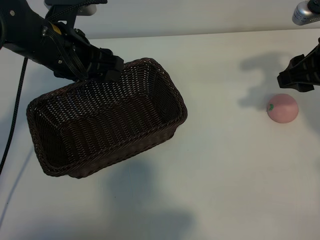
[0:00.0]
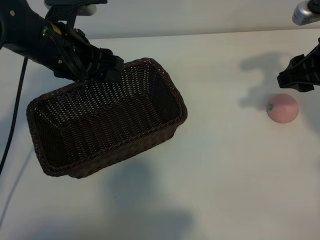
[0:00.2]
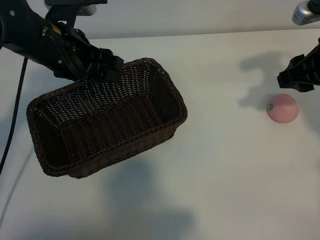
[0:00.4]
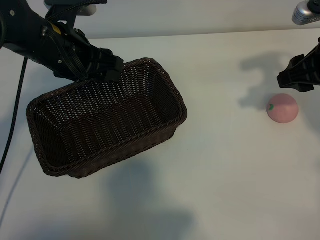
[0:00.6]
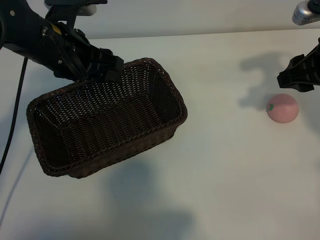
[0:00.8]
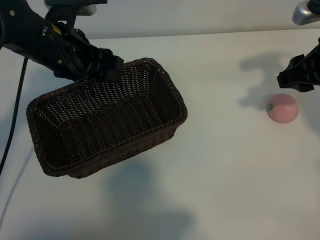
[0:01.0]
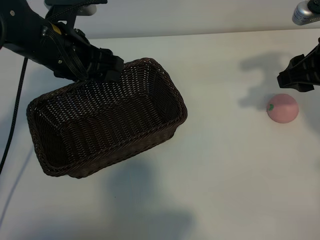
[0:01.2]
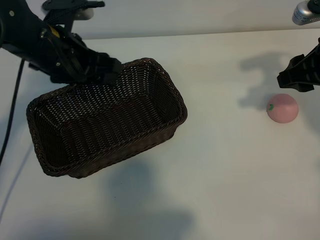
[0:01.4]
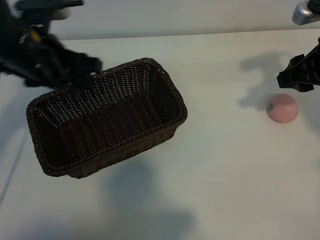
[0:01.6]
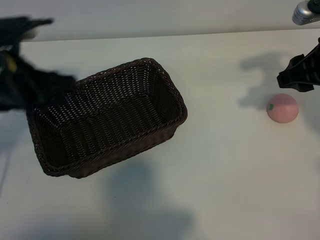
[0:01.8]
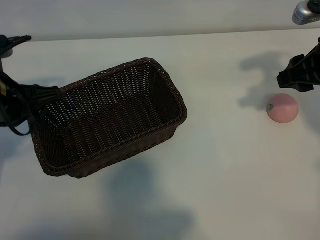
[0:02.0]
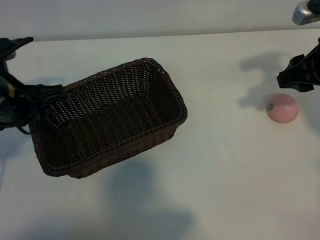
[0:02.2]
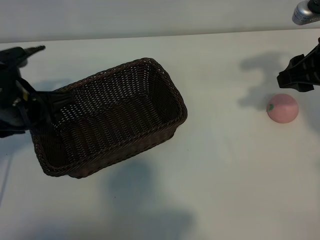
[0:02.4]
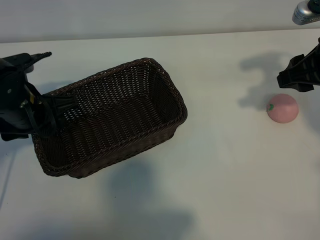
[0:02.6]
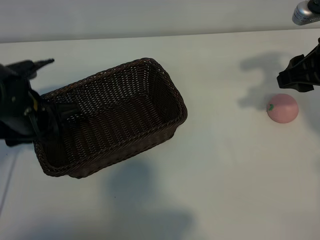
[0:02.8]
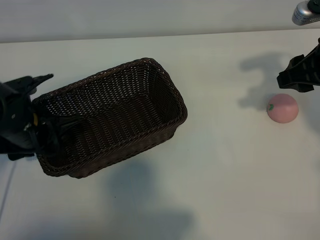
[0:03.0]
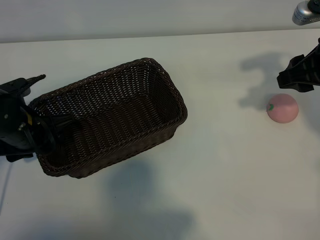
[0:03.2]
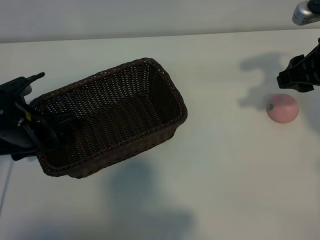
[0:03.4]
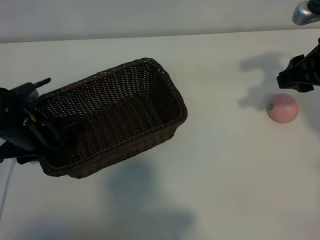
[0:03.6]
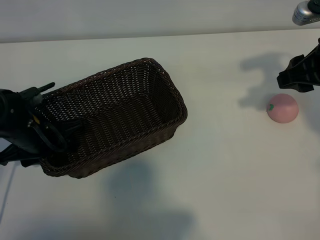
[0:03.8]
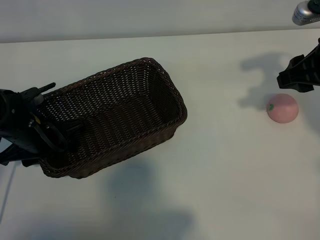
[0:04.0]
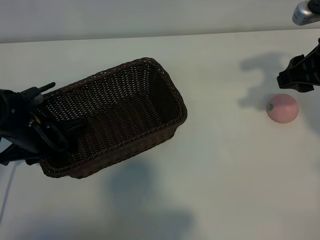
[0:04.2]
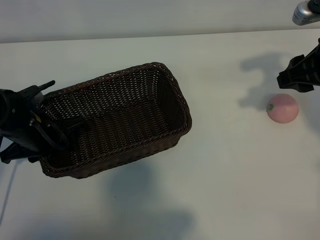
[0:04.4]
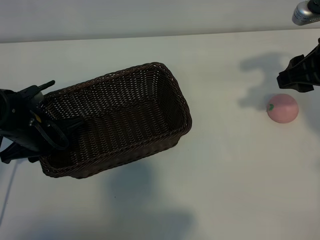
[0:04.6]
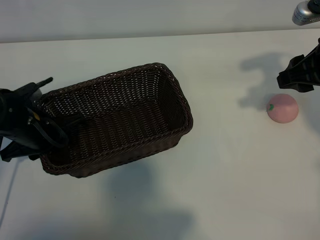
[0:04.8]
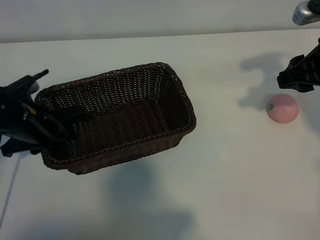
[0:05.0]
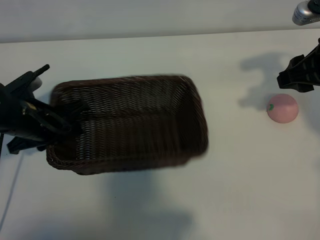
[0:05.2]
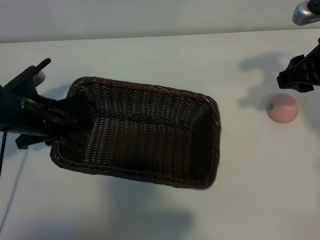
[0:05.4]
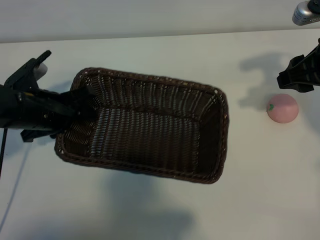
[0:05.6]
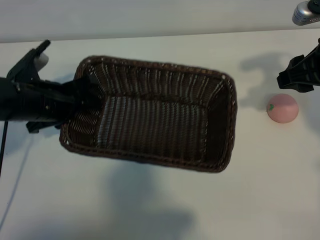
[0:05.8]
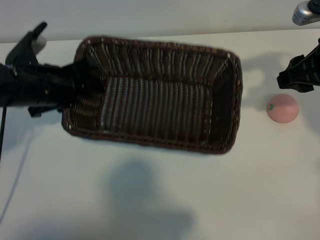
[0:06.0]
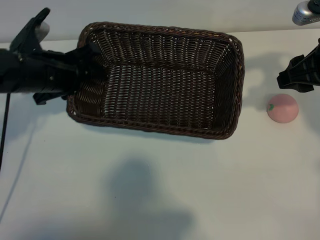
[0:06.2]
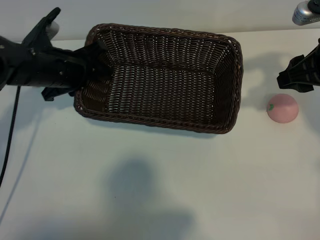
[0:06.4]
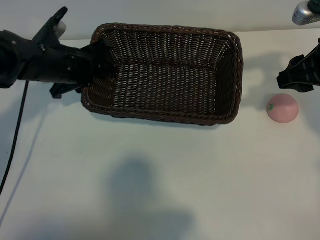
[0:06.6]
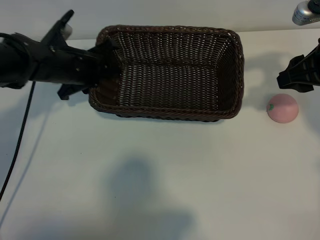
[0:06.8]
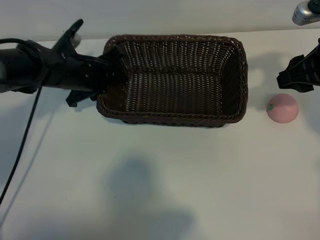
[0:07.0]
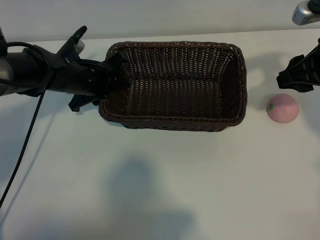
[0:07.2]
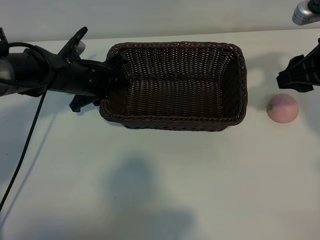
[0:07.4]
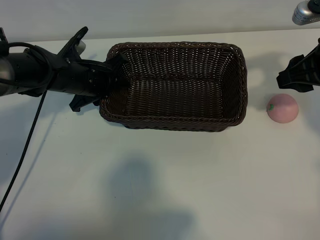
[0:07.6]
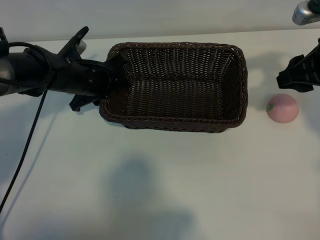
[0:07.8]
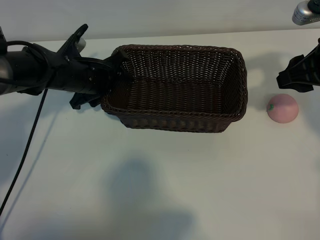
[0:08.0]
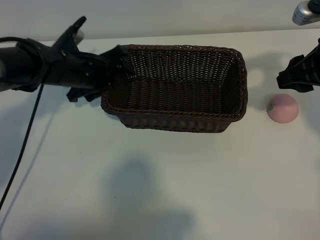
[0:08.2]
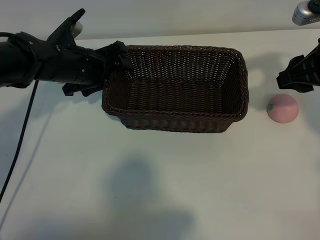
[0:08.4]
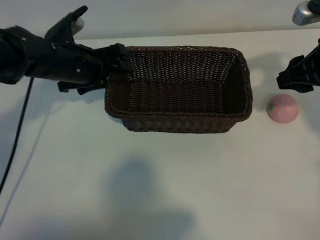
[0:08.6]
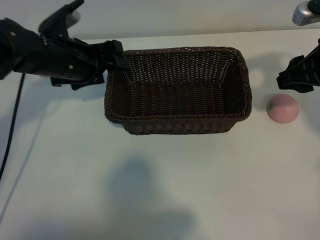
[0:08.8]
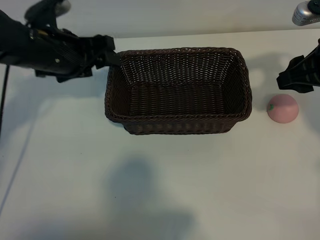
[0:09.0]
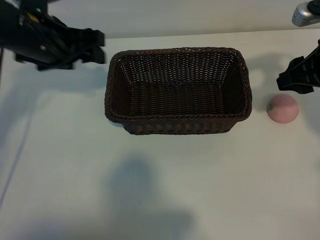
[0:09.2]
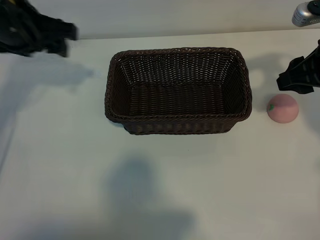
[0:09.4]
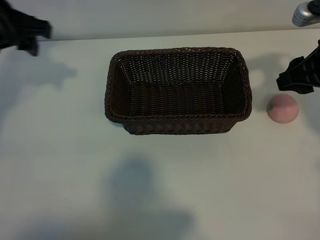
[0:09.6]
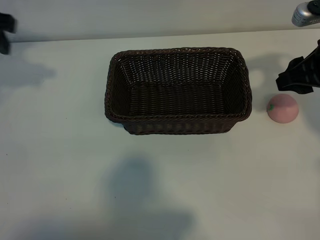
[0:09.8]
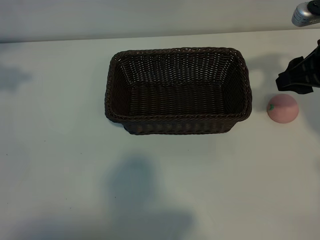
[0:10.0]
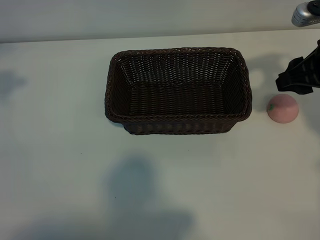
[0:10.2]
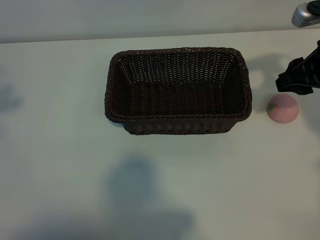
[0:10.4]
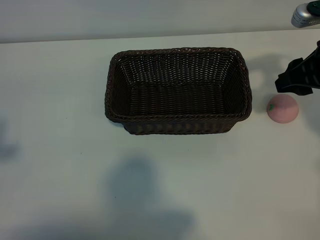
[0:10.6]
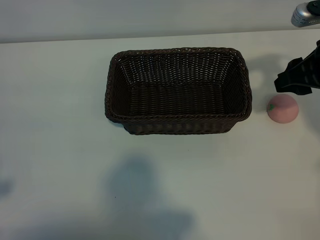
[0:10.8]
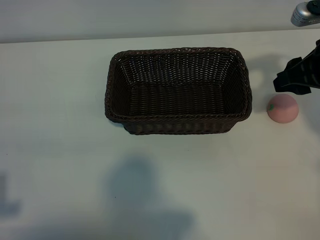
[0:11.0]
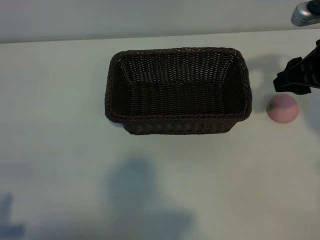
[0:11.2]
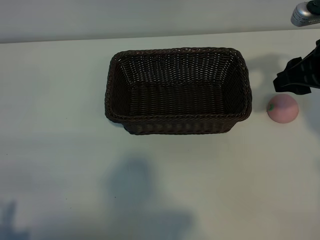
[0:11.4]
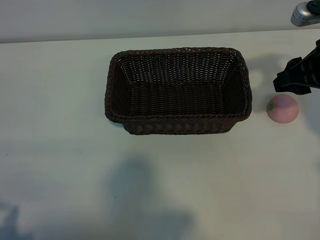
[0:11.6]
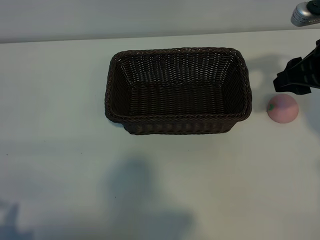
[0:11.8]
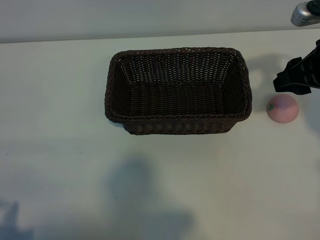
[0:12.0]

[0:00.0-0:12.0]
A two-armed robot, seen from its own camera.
Task of the whole recording: pick up the peach and put it into the basket.
Step, 0:01.4 to 0:04.6: Grasp the basket with left gripper.
Step, 0:04.8 to 0:08.8: Place the basket in the center of view with left gripper.

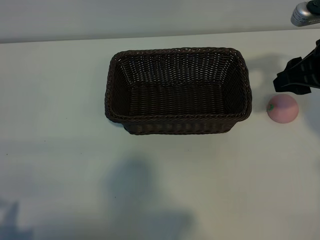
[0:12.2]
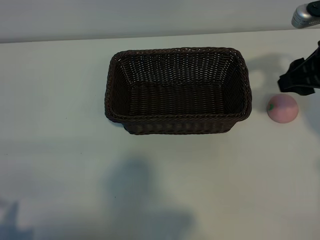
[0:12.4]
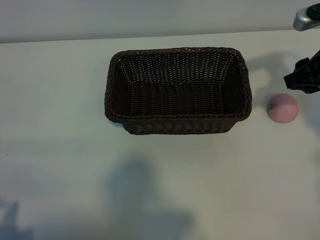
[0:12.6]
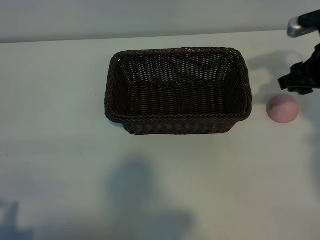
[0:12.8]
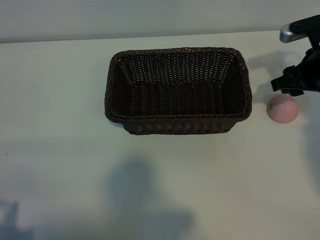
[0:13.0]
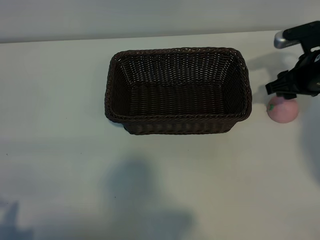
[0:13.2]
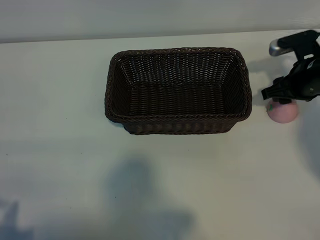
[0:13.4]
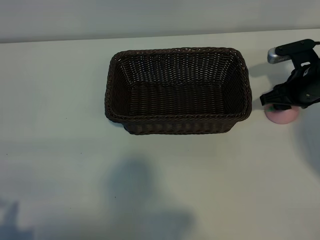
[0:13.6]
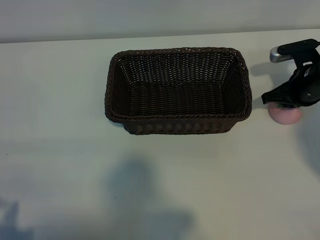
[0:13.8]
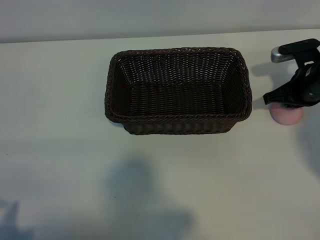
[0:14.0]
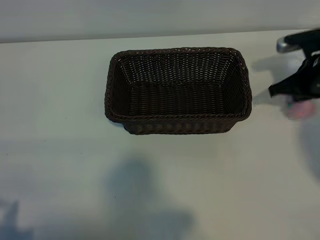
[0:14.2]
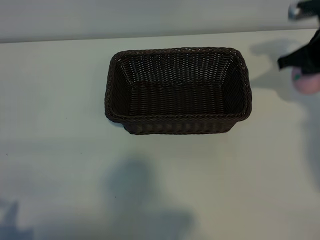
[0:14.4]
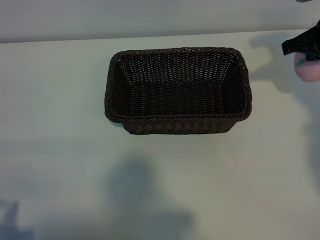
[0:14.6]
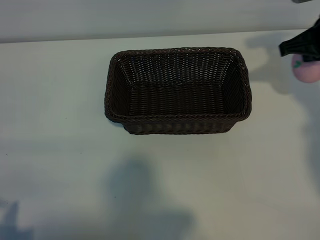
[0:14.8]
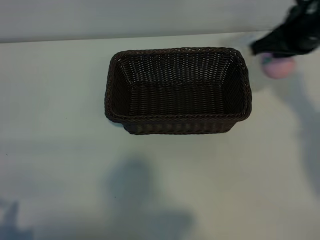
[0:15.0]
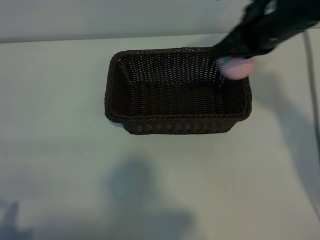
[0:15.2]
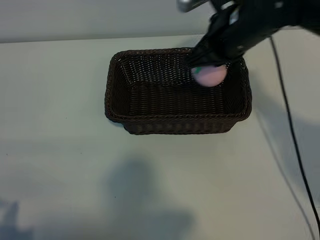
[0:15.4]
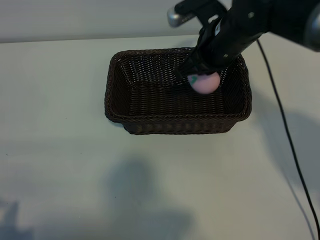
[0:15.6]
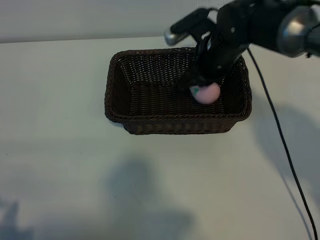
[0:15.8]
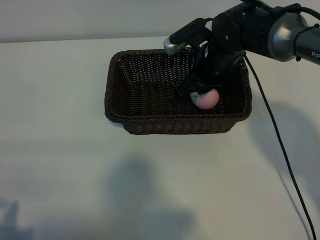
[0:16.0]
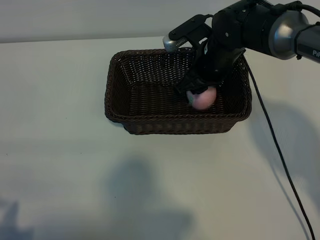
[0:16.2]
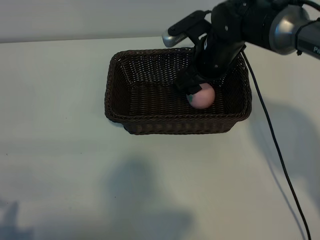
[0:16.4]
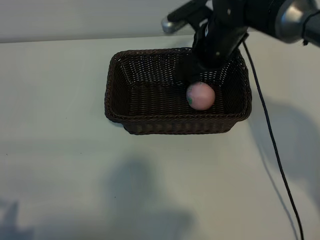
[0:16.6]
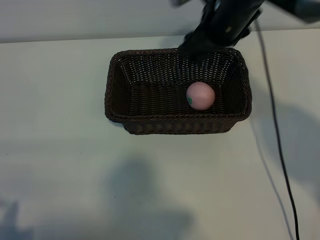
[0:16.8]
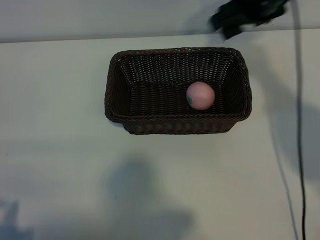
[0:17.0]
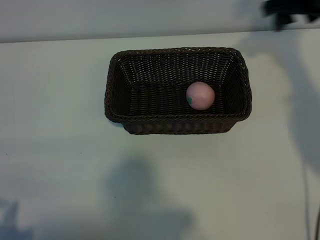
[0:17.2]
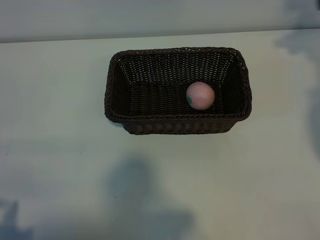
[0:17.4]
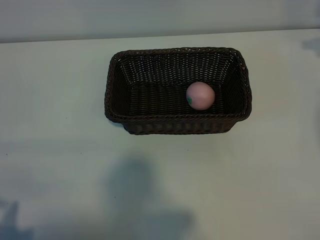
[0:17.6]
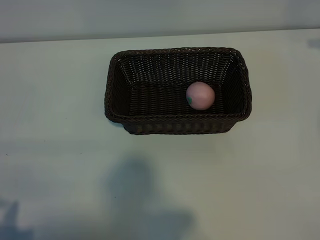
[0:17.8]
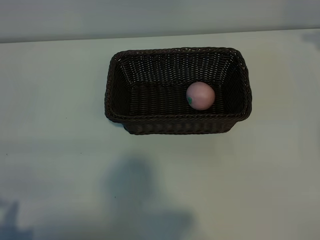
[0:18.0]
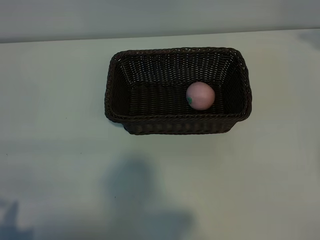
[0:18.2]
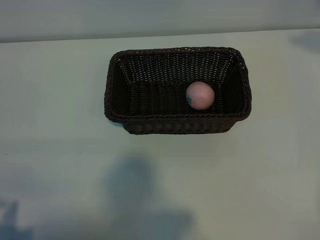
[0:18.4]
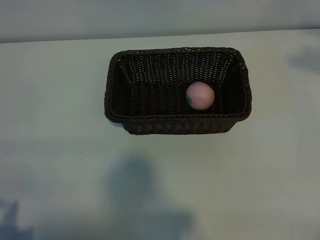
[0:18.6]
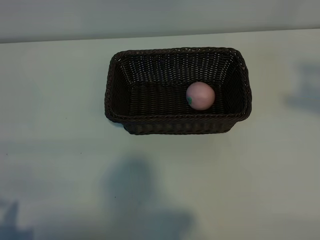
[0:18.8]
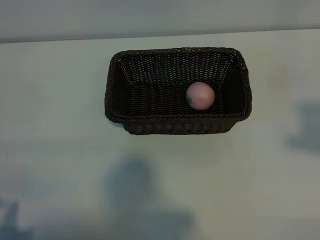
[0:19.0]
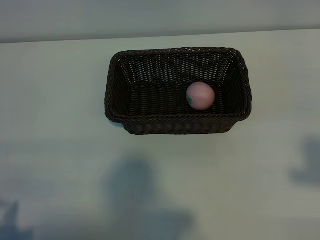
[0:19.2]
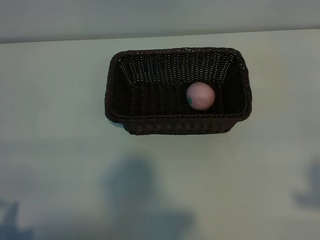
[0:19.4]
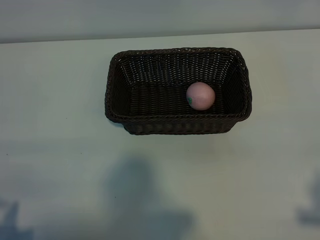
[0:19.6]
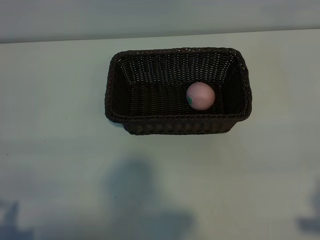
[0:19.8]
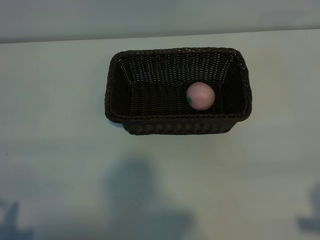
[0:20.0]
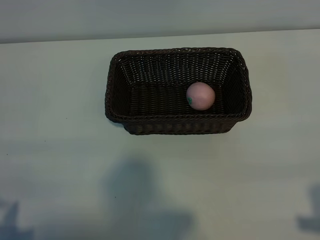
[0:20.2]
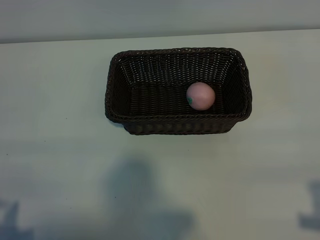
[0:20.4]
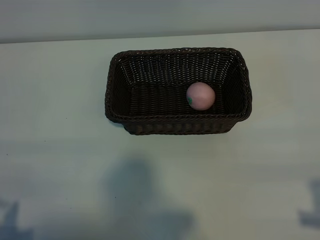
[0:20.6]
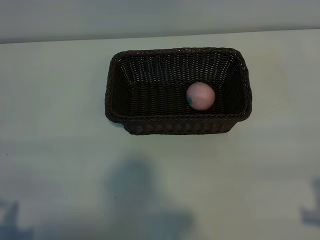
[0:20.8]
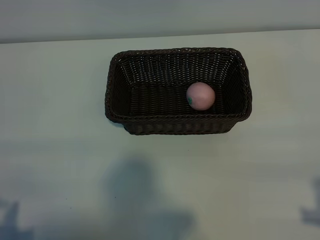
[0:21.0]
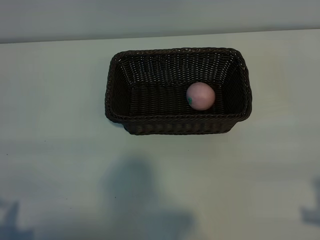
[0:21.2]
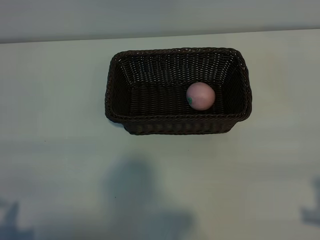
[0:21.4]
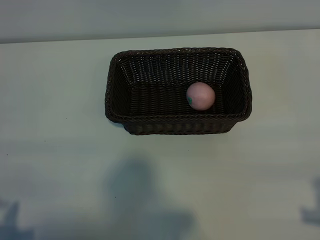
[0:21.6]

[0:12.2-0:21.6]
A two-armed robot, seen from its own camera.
Task of the whole recording: pick up the peach and put it into the basket.
Step, 0:14.2 to 0:16.4: Place the peach in the basket with right gripper.

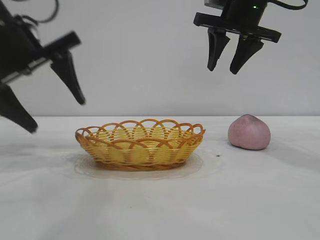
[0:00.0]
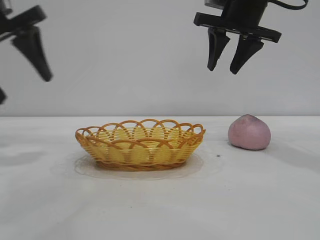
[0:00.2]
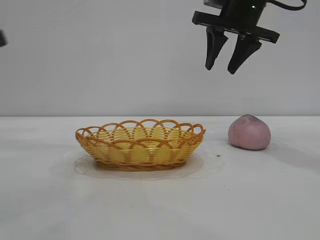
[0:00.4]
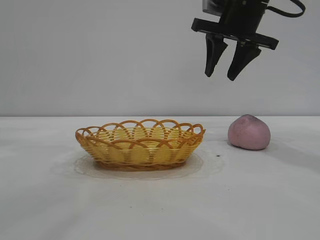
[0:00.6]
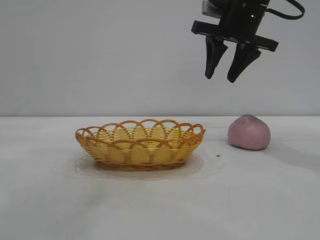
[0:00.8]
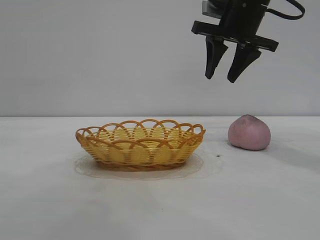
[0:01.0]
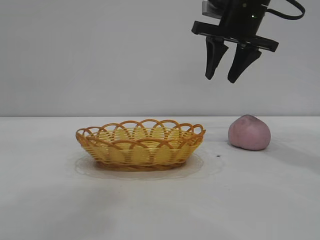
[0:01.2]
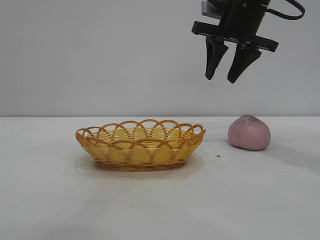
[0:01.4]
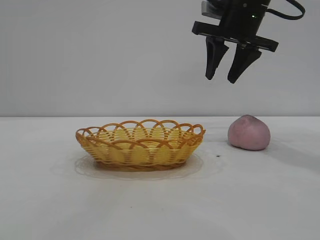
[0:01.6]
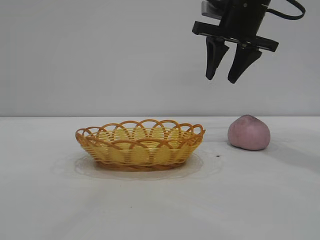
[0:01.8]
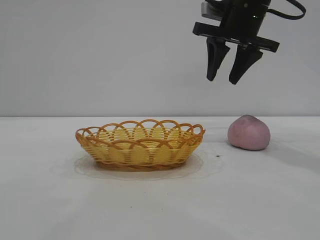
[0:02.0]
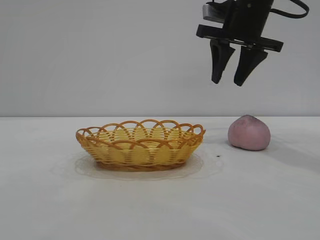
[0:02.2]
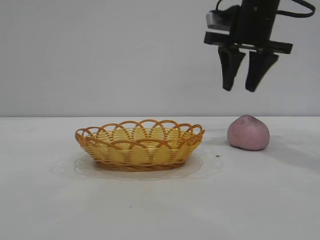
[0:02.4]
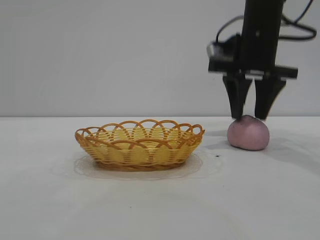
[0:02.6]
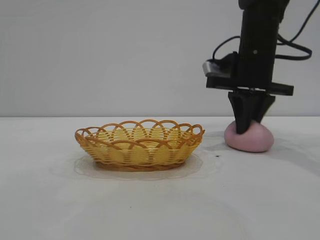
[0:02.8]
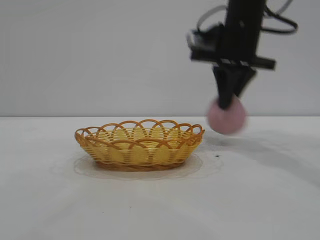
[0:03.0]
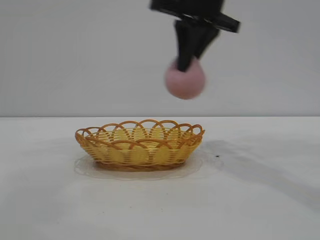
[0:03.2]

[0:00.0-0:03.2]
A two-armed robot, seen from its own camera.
Task of the whole recording: pick up the peach and put it into the basket.
Step, 0:00.2 to 0:03.0: Pick up the peach.
